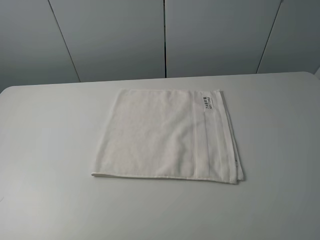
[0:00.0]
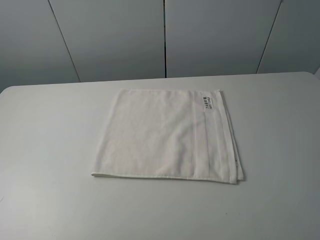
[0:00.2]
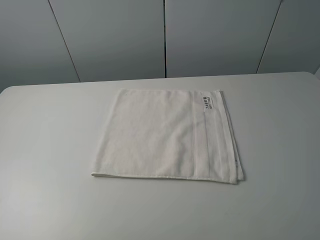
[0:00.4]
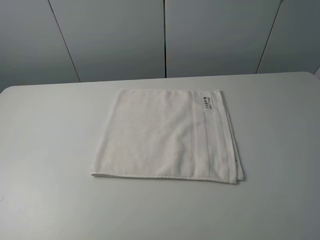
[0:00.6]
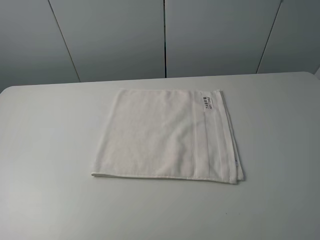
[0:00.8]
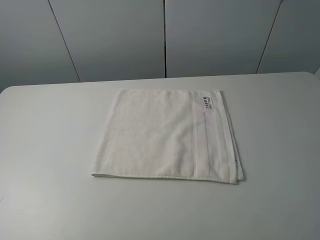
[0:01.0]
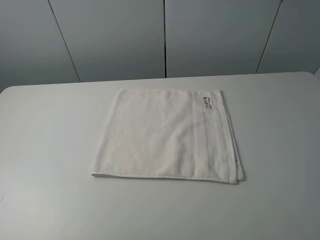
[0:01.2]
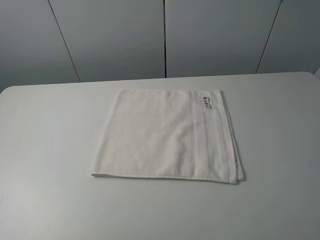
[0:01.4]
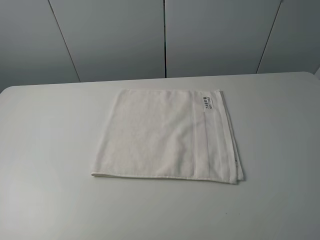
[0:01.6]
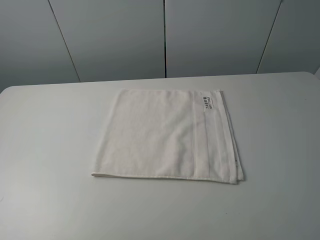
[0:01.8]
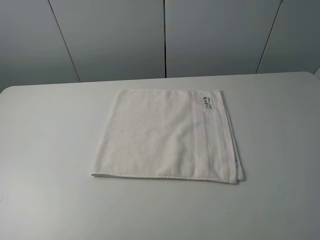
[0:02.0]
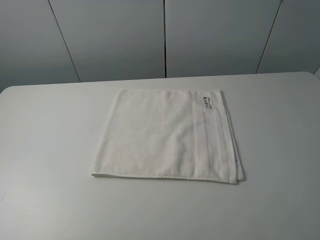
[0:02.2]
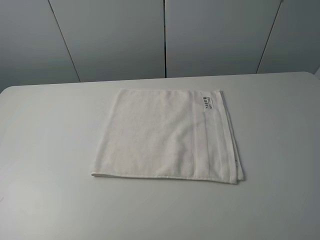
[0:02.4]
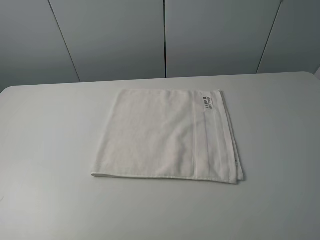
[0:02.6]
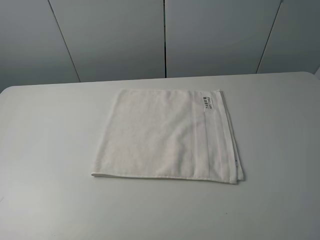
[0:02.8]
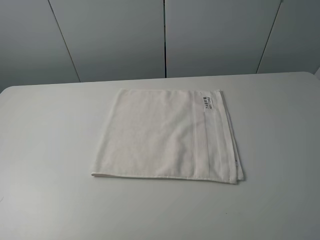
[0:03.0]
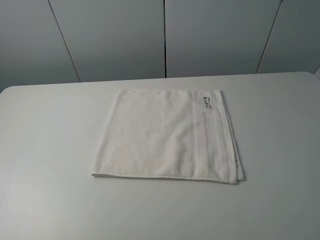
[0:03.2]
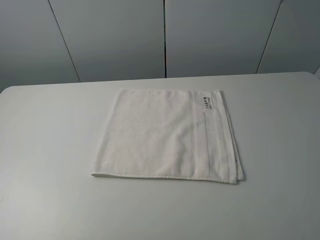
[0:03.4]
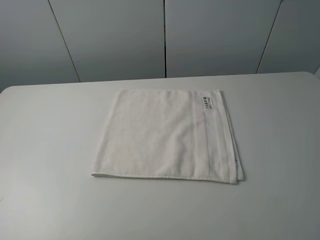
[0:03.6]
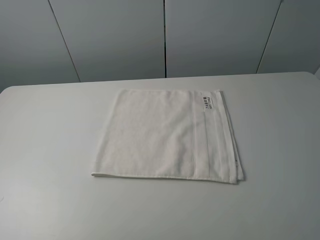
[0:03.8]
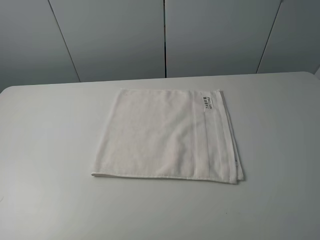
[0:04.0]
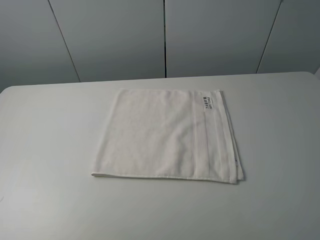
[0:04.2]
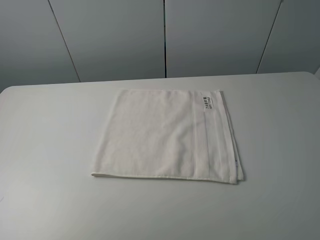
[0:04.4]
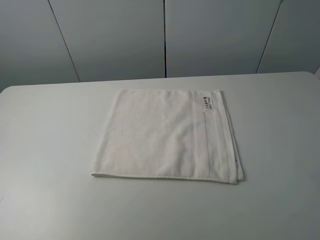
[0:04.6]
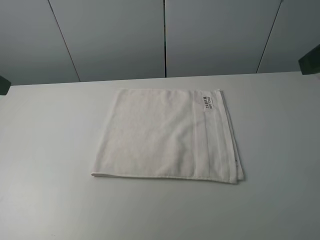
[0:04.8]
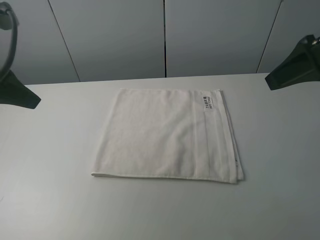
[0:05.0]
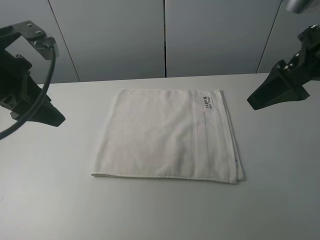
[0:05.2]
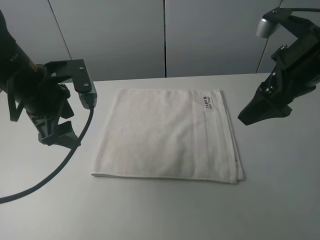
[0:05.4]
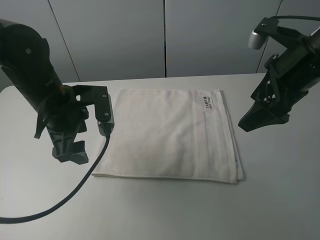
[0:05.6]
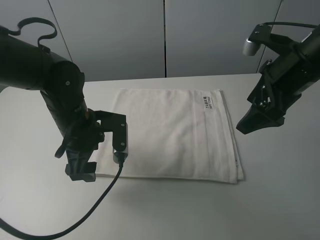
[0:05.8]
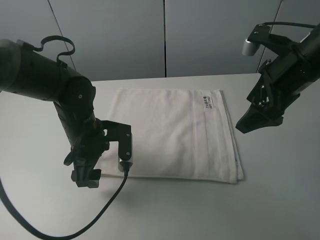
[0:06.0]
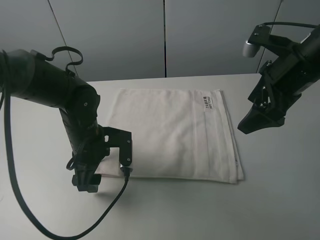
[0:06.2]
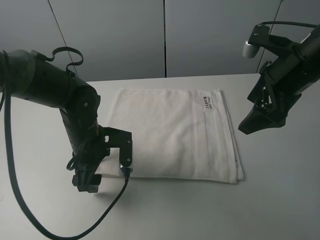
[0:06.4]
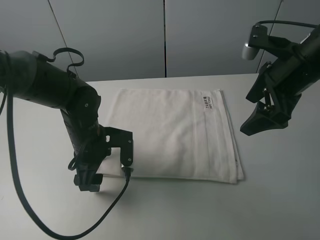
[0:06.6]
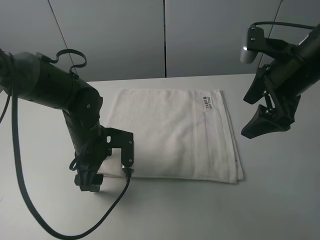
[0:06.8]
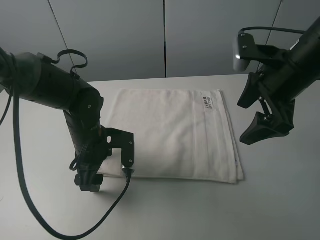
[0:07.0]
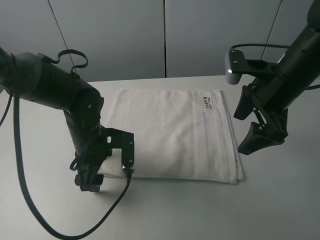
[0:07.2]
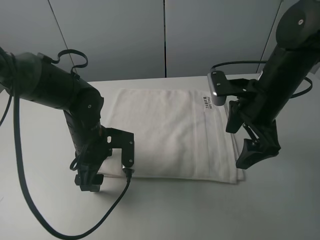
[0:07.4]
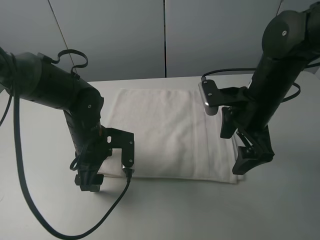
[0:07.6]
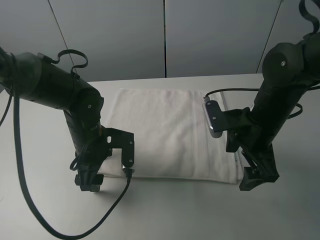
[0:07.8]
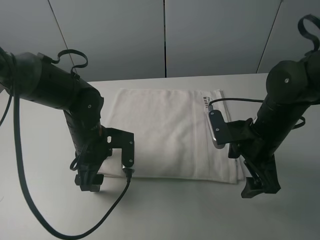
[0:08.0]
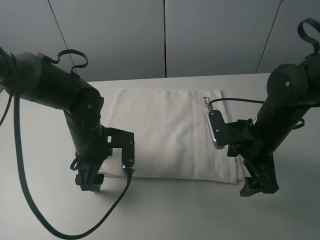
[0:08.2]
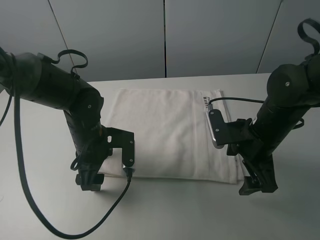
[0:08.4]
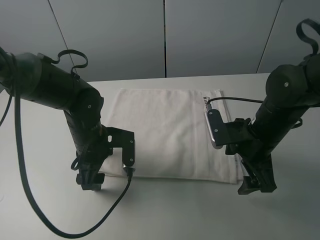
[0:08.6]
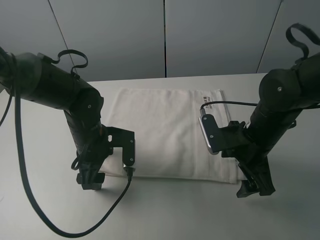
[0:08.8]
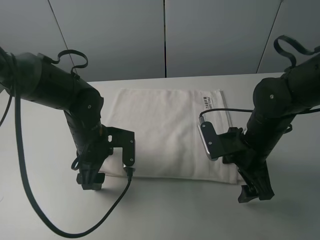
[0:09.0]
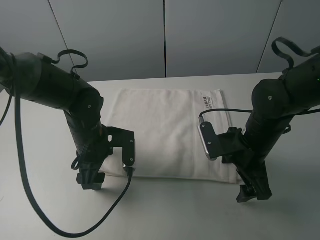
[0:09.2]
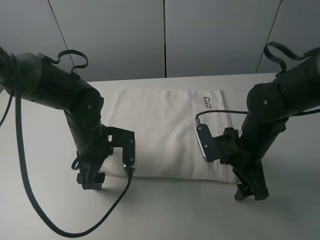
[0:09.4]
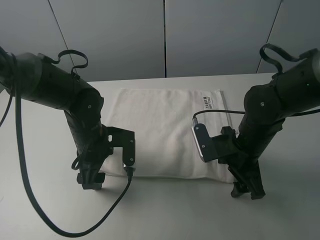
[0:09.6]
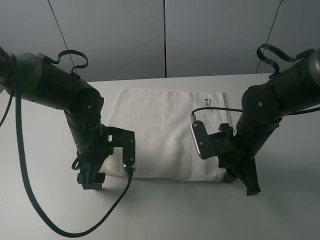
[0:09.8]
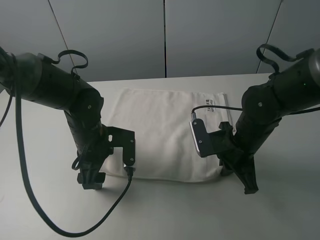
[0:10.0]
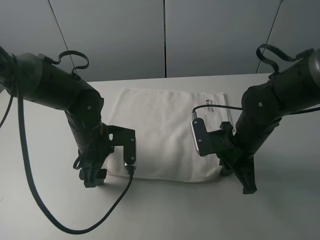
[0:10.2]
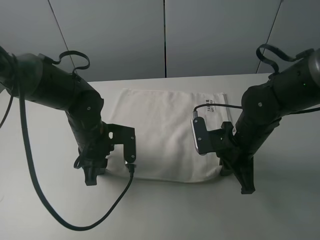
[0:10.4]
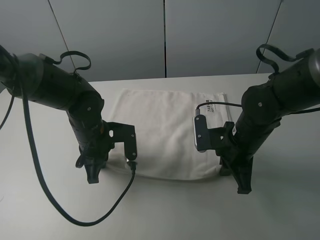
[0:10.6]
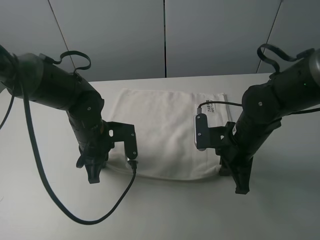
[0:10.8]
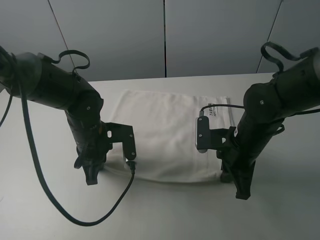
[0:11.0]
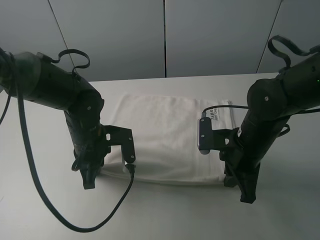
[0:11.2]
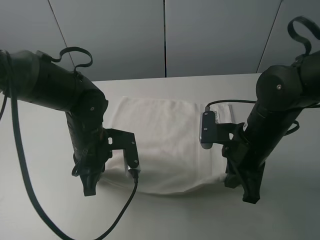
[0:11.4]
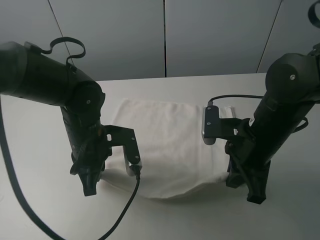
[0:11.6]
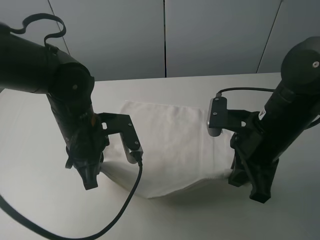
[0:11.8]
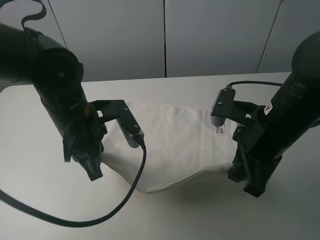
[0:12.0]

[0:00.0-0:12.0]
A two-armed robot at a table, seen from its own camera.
Task of the whole recording: fold the towels on the table.
Step, 0:00.0 to 0:10.0: Grasp the white towel with the right gripper.
Step, 0:10.2 to 0:10.4: Grasp the white towel with the left gripper.
0:00.0 to 0:01.6: Both grippers stay put.
0:04.4 to 0:06.0: The right gripper goes about 20 cm forward and downward; the left gripper heads downward, forward and to the right, covering approximately 35 cm.
0:06.0 to 0:07.6: The right gripper travels downward and to the left by some 10 cm.
0:07.6 to 0:09.0: The right gripper shifts approximately 5 cm downward.
0:09.0 to 0:10.4: The left gripper closes up; the right gripper closes up.
0:10.4 to 0:12.0: Both grippers travel together upward, approximately 10 cm.

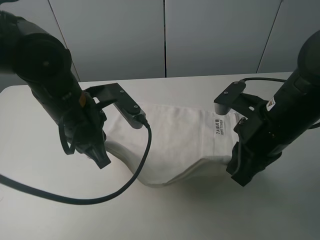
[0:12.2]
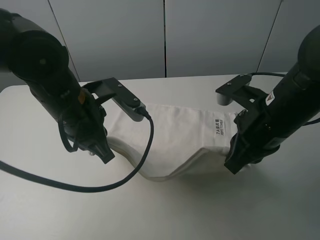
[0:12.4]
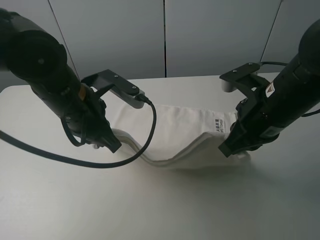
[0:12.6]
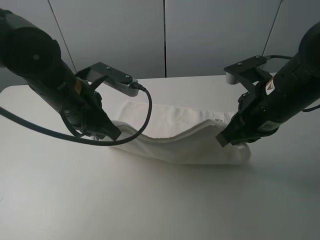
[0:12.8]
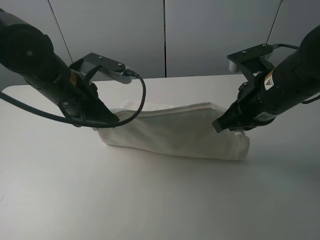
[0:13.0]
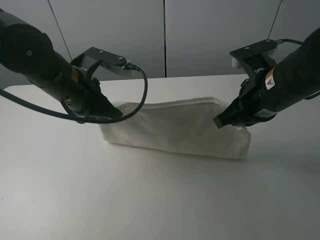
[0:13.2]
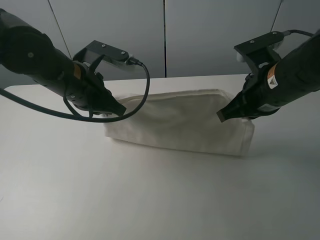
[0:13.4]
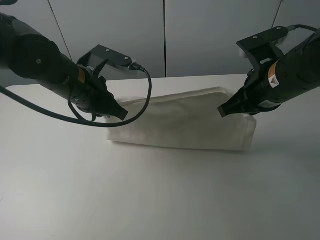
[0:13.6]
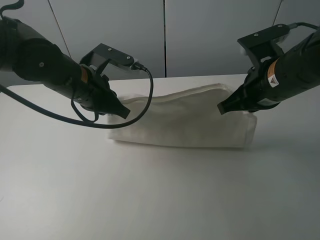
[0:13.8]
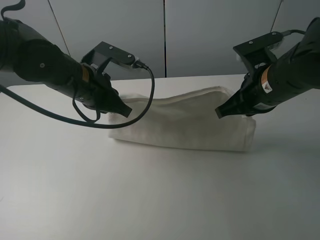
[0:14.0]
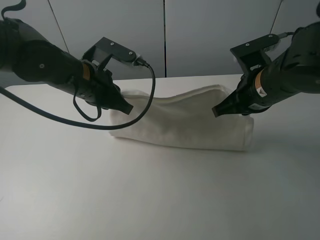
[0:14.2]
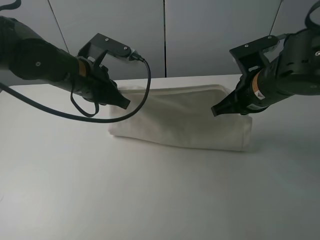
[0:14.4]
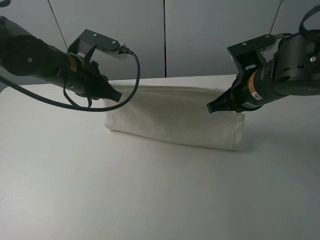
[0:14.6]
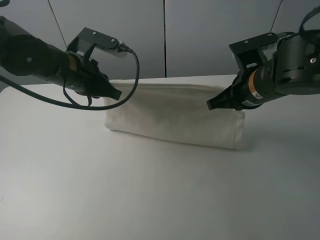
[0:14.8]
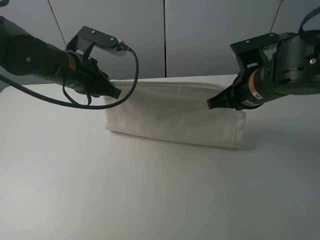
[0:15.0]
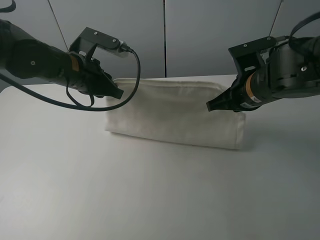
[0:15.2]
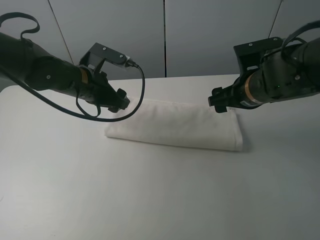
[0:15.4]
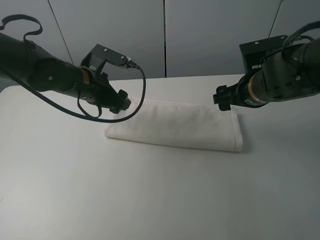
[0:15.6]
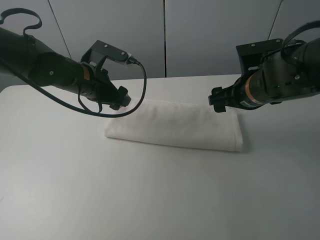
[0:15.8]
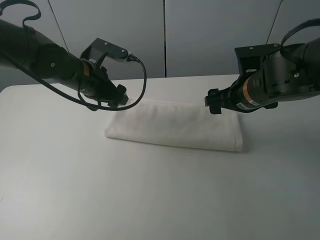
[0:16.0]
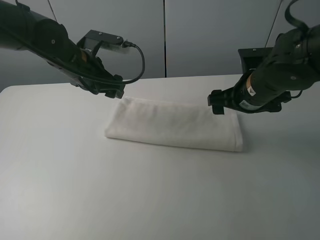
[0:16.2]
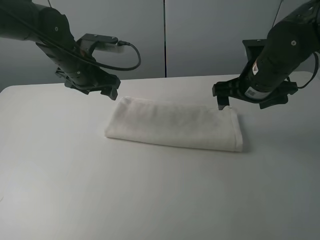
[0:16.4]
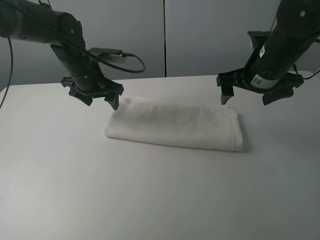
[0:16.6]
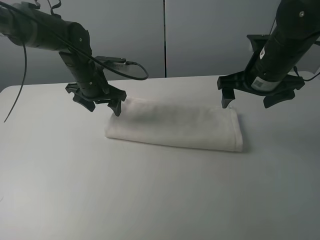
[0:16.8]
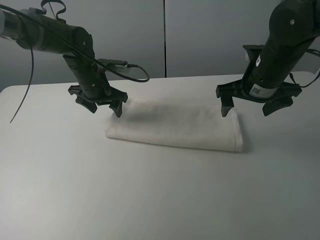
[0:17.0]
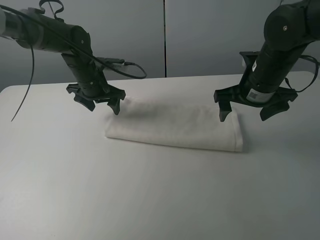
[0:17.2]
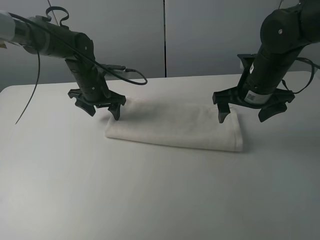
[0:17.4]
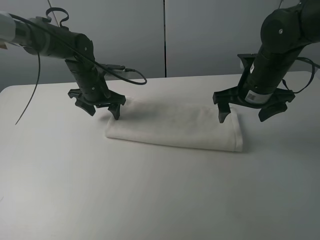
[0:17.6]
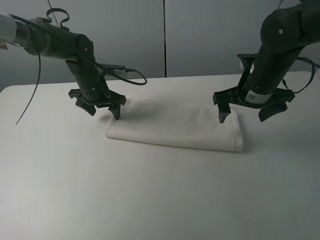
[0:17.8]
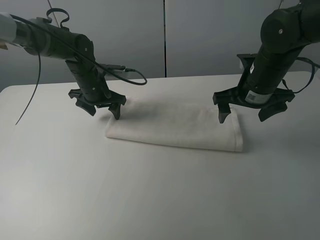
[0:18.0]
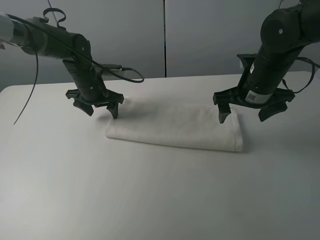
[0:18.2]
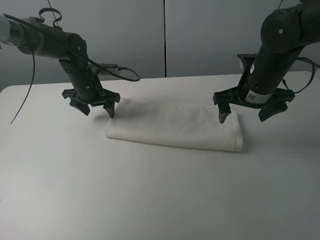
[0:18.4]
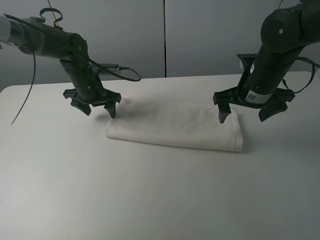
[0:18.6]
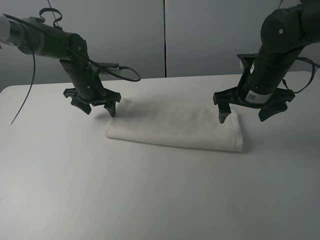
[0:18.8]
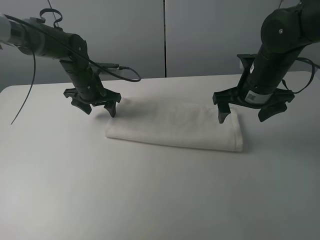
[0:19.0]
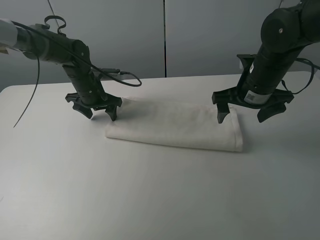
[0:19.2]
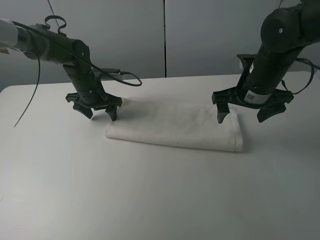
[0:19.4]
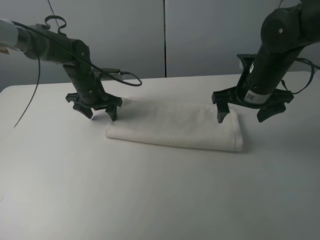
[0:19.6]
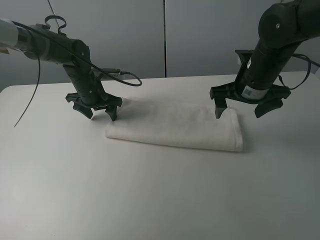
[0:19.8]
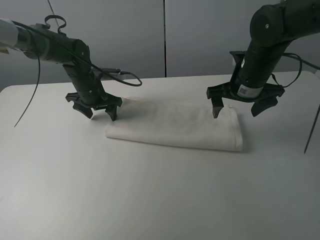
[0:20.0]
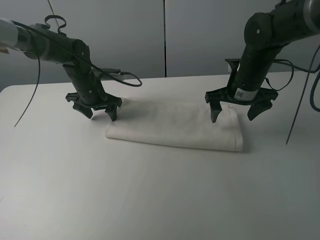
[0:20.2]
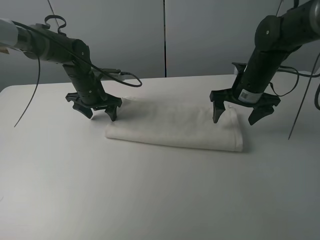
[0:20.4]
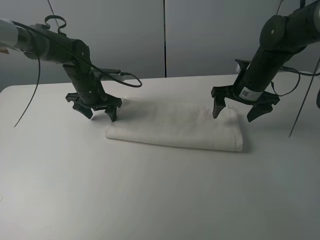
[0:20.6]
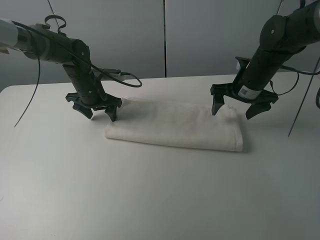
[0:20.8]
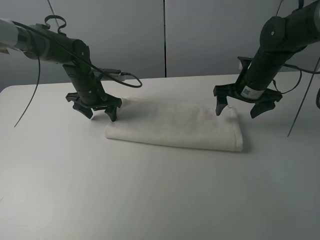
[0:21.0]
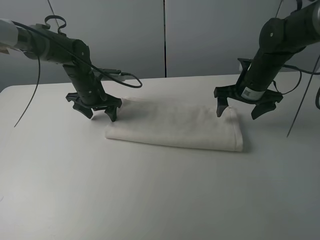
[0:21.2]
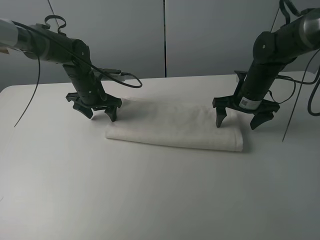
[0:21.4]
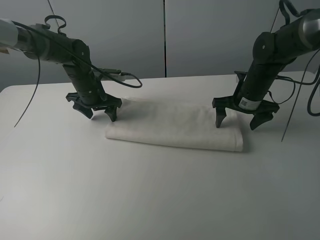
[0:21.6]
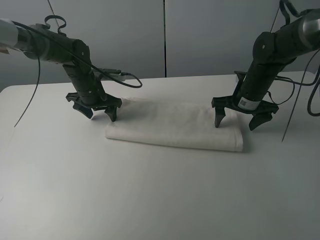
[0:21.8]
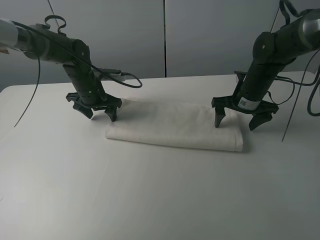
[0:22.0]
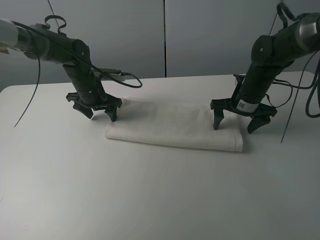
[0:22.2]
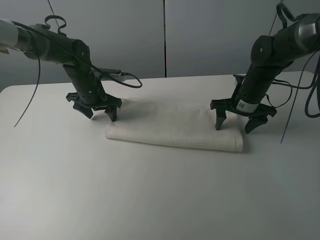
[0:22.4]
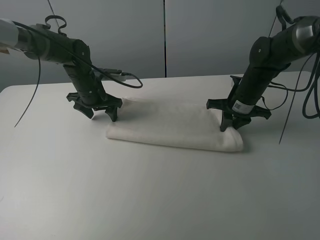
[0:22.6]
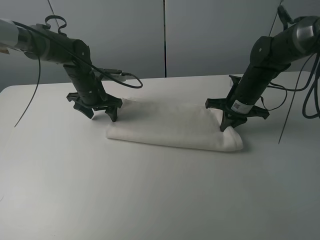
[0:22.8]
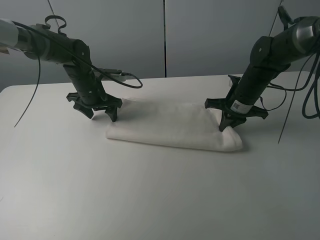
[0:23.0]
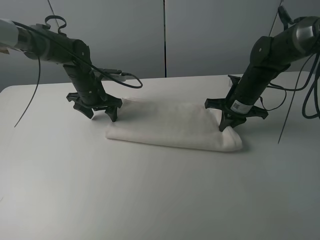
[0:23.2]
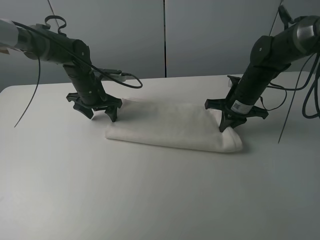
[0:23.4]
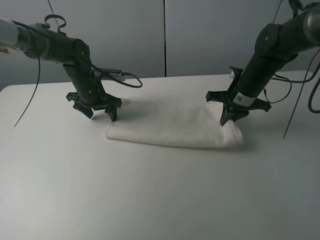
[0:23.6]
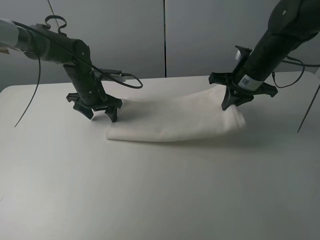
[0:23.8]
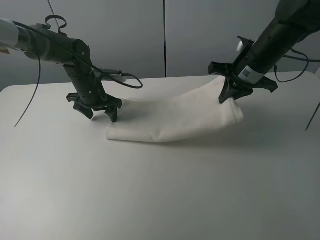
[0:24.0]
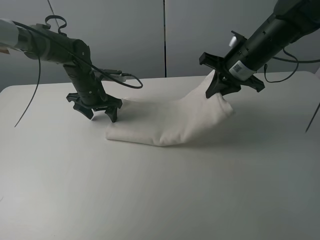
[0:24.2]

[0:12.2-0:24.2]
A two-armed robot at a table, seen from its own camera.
Task of the whole recording: fold the towels on the table.
Step, 0:12.2 to 0:15.4: Fold the white towel upwards with the right gripper.
Step, 0:15.8 to 0:19.2: Press on the white towel with the left gripper.
0:12.2 to 0:13.8: The grippers both shift forward by some 5 cm.
0:13.8 to 0:15.2: The right gripper ends up approximately 5 cm from where it was.
0:15.2 to 0:16.6: The left gripper shifts about 5 cm forward, and opens up. Meanwhile the right gripper ends up some 5 cm from where it was, and opens its fingers.
0:16.6 to 0:18.2: The left gripper ends up roughly 5 cm from where it was.
0:18.2 to 0:19.8: The grippers move only a little.
0:19.8 to 0:21.2: The right gripper changes place by about 5 cm.
0:21.2 to 0:22.6: The right gripper closes up.
0:22.6 to 0:24.2: The right gripper travels upward by about 10 cm.
